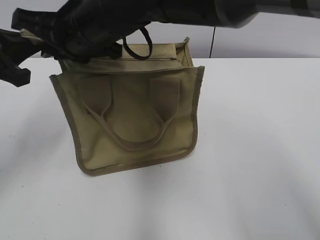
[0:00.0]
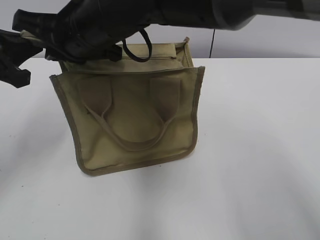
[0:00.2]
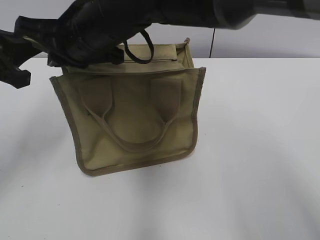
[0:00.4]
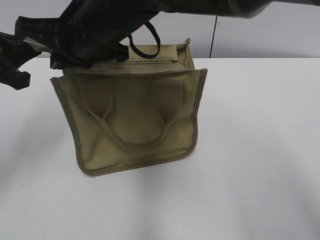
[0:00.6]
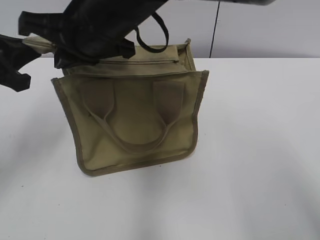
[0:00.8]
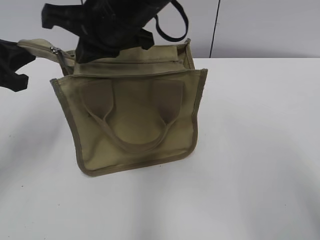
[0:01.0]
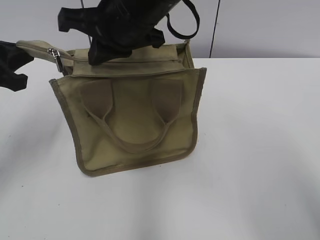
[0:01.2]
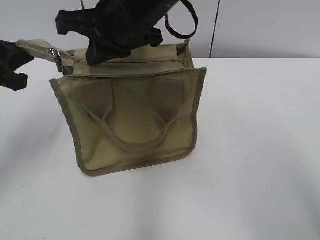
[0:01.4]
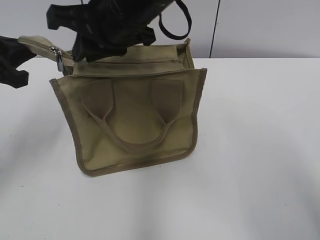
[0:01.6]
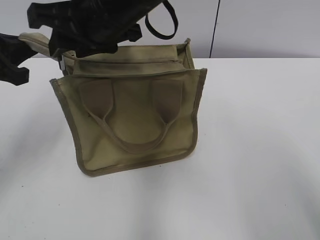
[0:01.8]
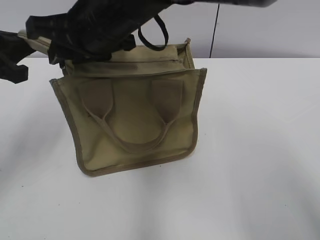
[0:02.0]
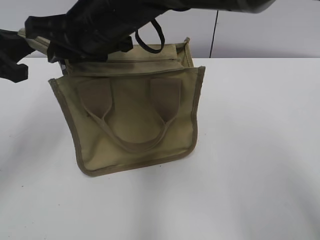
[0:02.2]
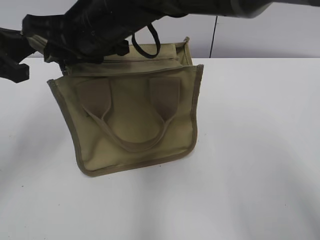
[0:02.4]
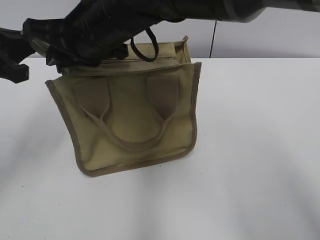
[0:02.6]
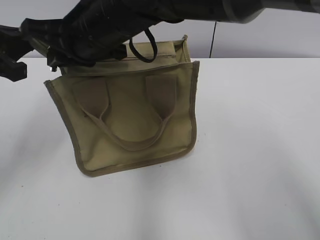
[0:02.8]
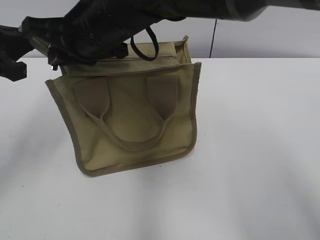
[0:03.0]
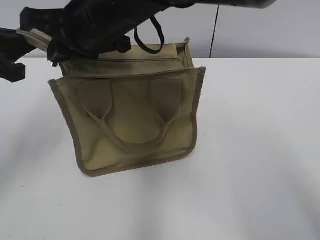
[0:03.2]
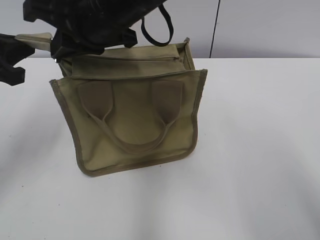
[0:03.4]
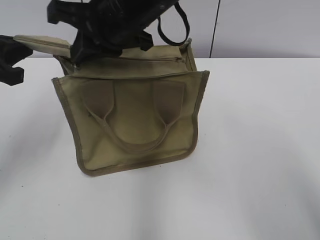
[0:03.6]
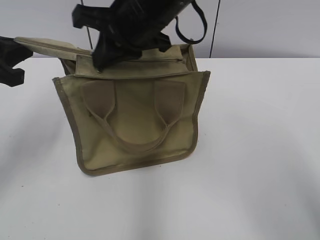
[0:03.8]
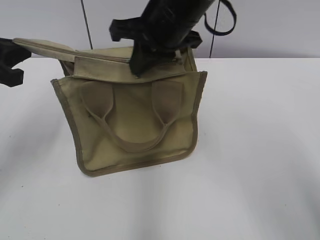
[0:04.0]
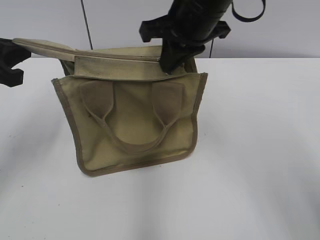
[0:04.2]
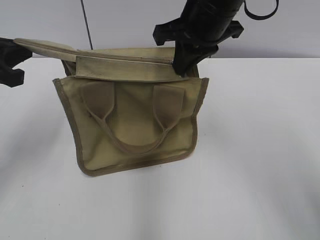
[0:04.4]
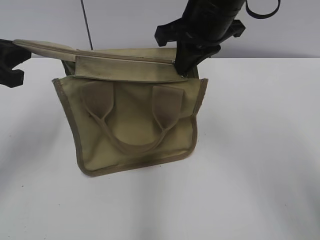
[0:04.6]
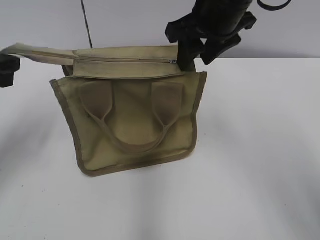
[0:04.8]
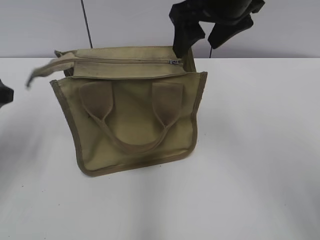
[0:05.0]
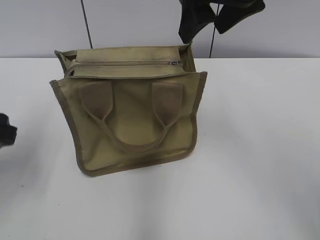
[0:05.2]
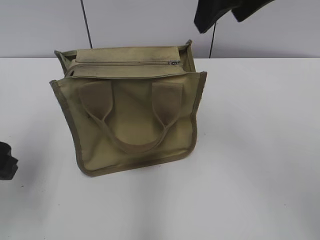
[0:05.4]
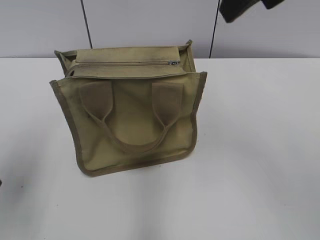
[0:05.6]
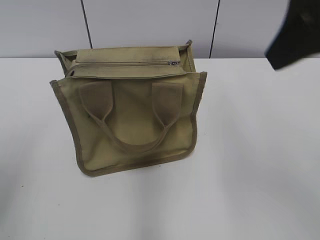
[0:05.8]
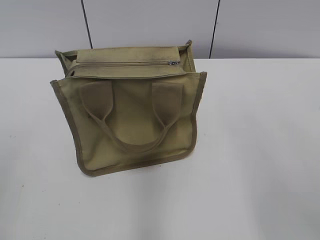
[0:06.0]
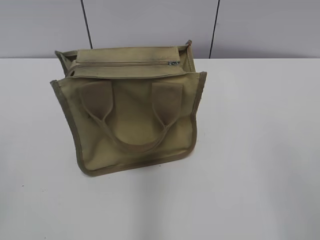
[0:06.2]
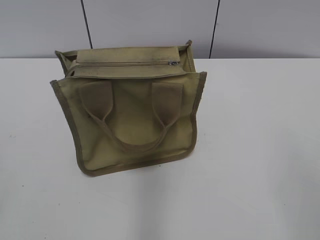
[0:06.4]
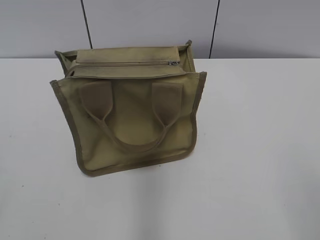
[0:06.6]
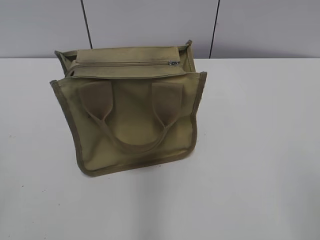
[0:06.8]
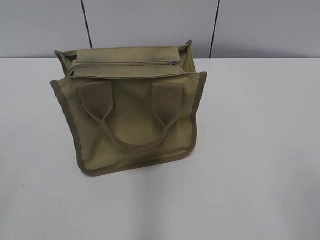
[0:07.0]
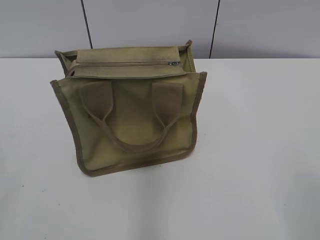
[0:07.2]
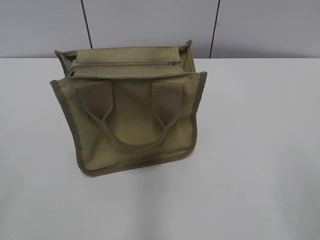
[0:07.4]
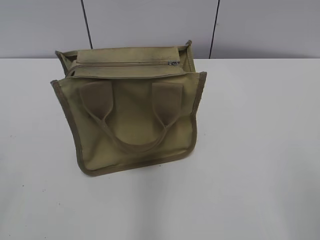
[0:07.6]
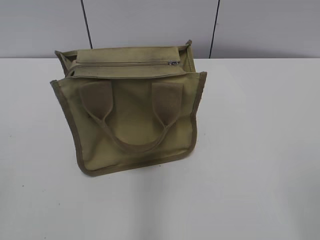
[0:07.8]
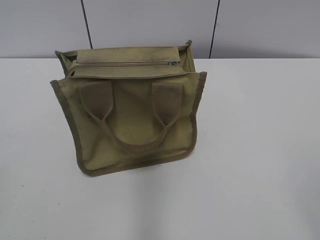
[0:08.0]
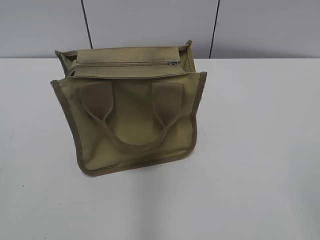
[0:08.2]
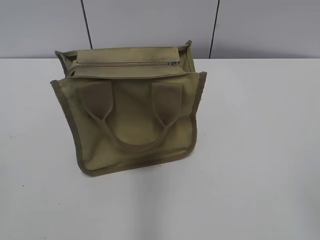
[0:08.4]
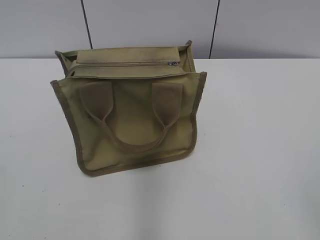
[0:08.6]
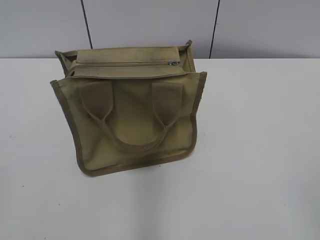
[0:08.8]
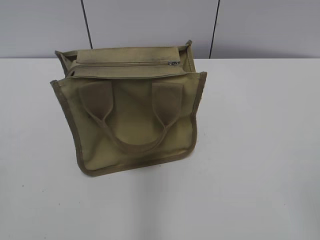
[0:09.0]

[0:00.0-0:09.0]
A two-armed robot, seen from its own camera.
Step, 0:00.0 to 0:04.6: Zip up the bag with your right hand.
0:00.0 to 0:01.6: The right gripper moves some 5 cm.
0:01.6 to 0:03.0: The right gripper opens and closes again.
0:03.0 to 0:04.4: The right gripper heads to the right, covering about 15 cm.
0:04.4 to 0:06.0: The left gripper goes some 15 cm backward, and opens up; the right gripper moves backward, to the right and upward, some 25 cm, and opens.

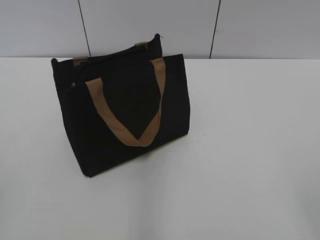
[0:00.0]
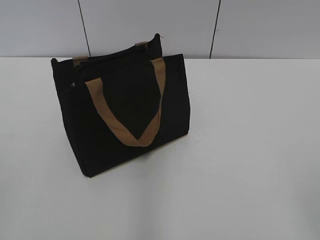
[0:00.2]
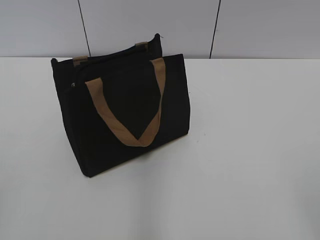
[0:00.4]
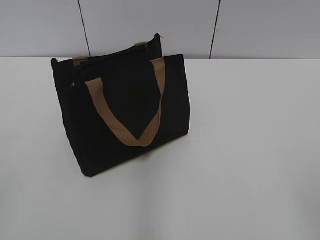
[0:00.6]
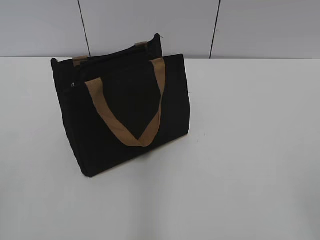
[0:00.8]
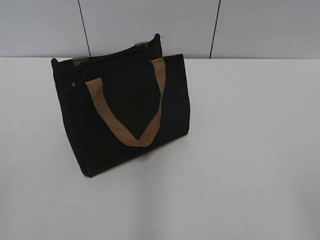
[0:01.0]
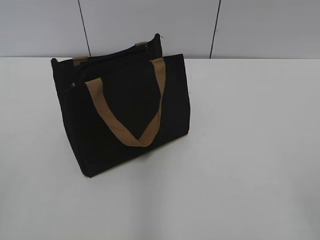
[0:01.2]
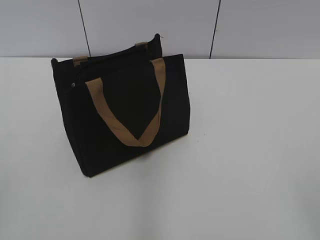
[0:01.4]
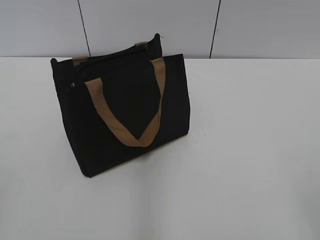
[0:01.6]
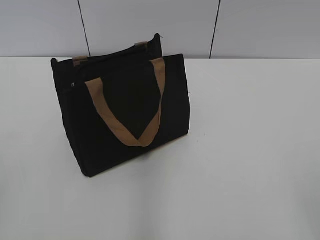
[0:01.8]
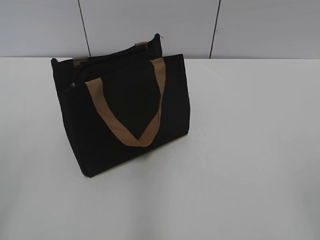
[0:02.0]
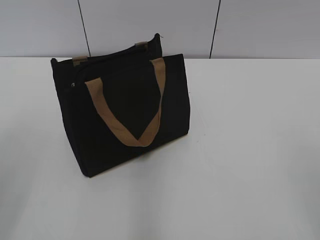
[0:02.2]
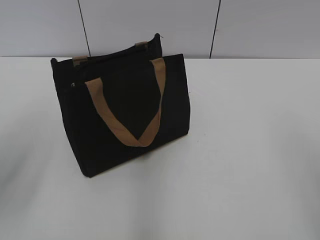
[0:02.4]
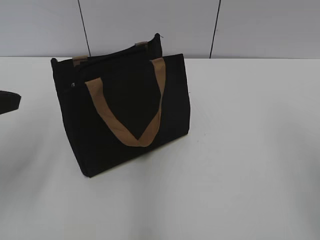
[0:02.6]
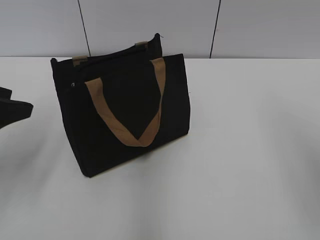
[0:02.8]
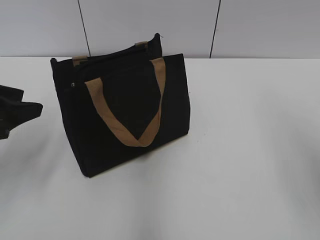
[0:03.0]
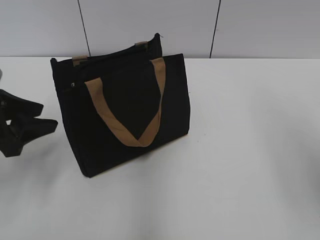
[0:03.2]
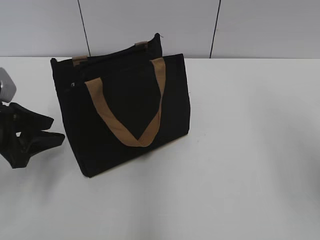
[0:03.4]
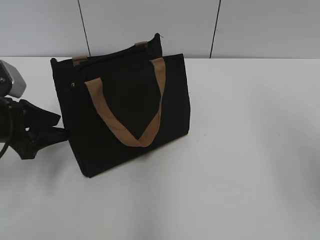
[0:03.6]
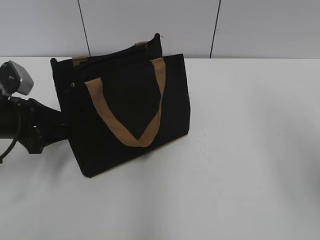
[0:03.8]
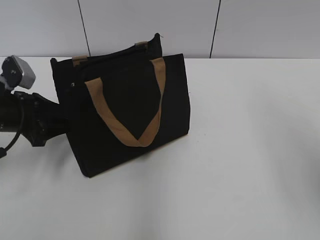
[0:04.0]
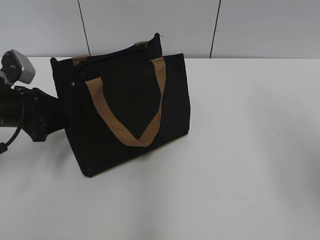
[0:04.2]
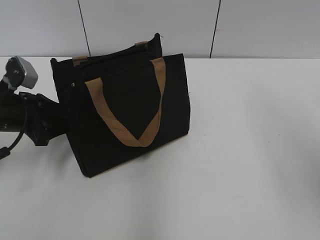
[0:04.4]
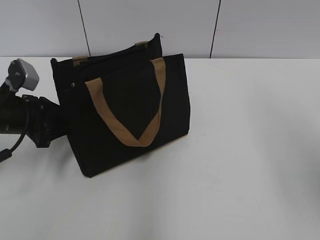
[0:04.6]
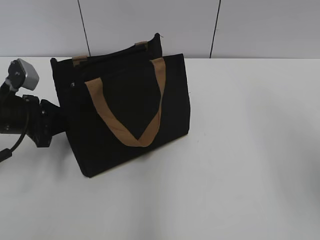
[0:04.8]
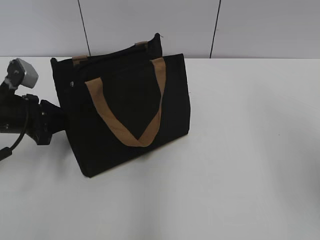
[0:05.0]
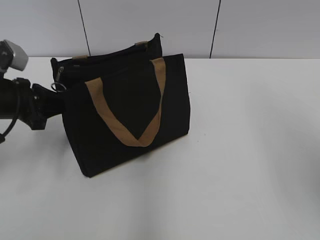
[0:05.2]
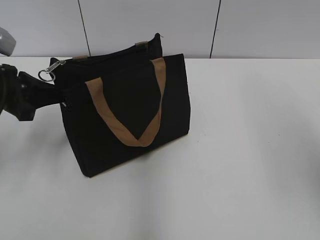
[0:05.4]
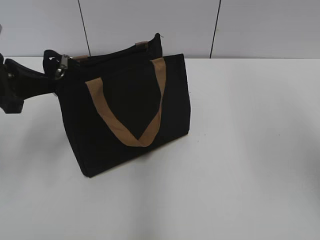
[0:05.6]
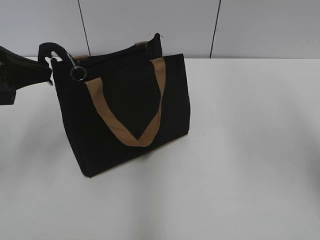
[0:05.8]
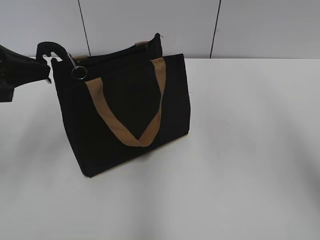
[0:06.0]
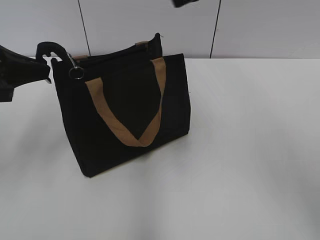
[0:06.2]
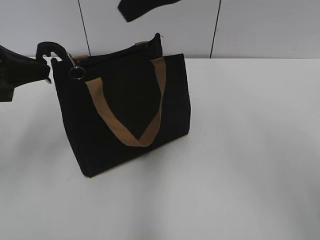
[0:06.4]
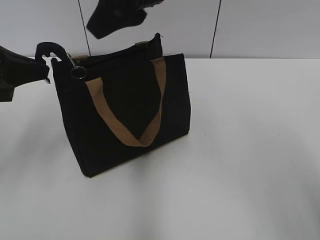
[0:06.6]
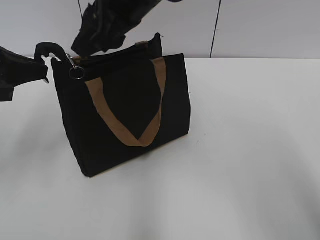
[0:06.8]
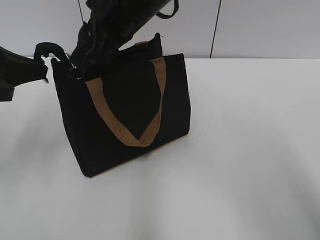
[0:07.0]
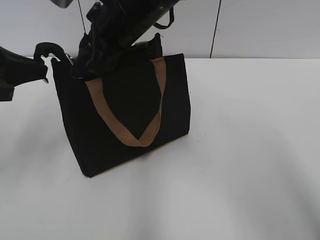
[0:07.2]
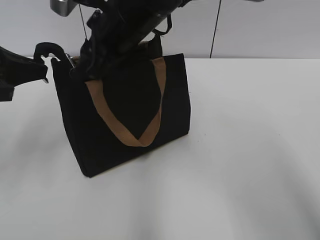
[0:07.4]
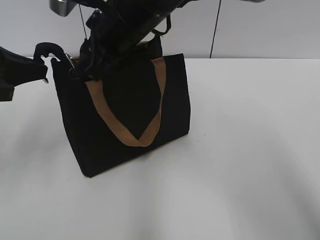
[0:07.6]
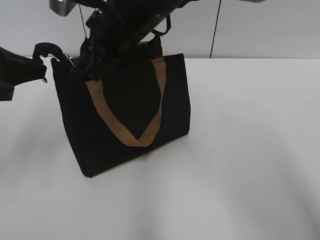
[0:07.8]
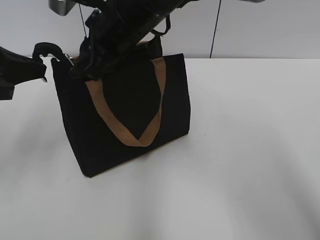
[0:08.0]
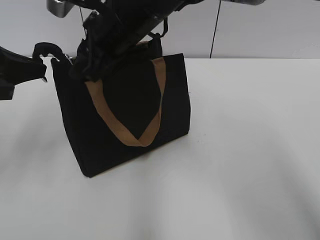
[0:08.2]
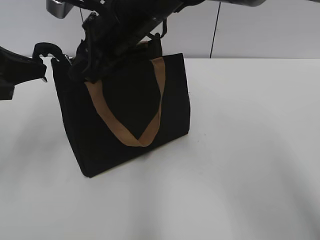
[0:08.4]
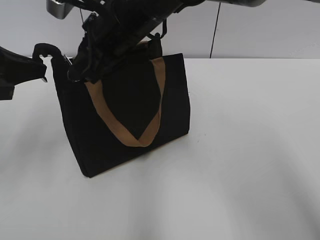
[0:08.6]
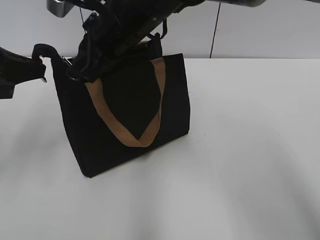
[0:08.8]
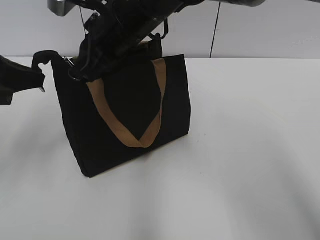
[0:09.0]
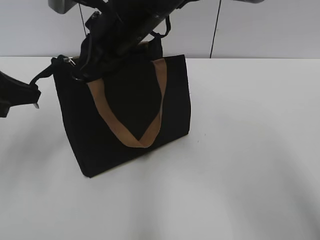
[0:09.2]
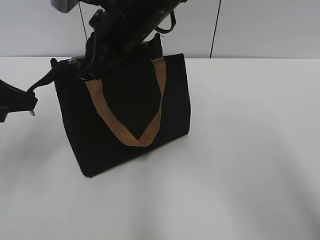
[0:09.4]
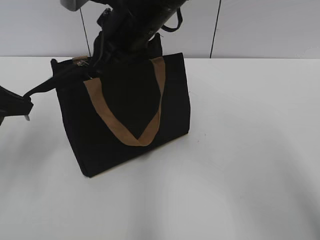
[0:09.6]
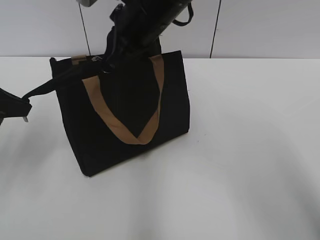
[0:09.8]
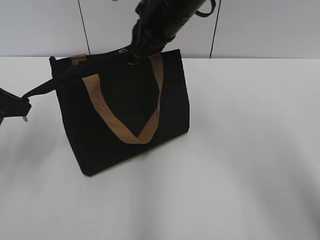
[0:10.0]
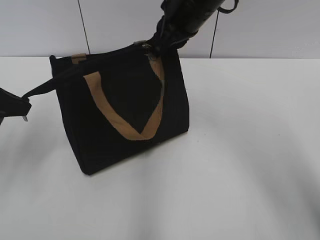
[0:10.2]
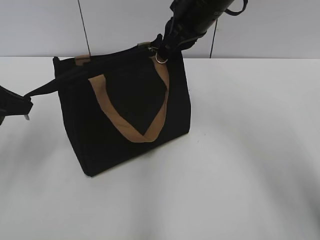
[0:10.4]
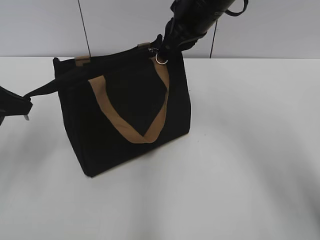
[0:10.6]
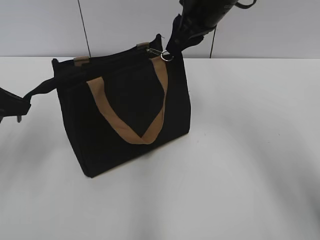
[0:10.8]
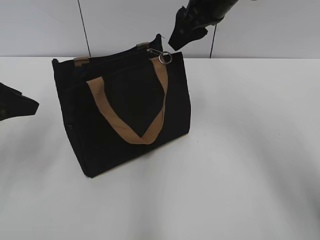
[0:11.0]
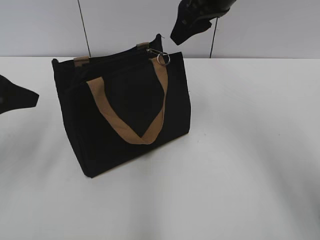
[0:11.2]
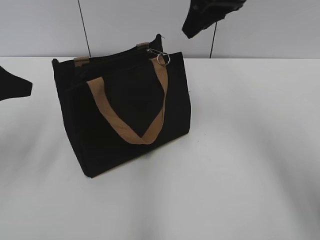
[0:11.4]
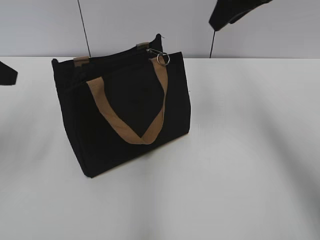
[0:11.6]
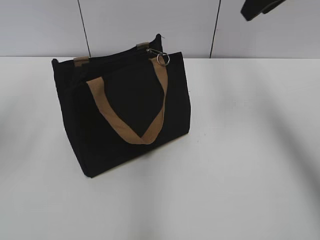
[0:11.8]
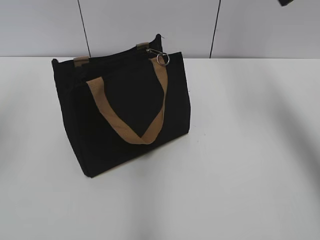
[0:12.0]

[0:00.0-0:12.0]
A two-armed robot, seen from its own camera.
Step, 0:00.0 to 0:10.6: Zip up the bag with your right hand.
0:01.6 to 0:03.0: The left gripper is displaced forward by roughly 25 cm.
0:03.0 to 0:04.4: The left gripper goes about 10 cm forward and downward.
0:04.4 to 0:06.0: The left gripper travels upward by about 10 cm, and closes its fingers.
0:06.0 to 0:07.6: The right gripper is displaced to the left and downward by some 30 cm.
0:07.6 to 0:09.0: The right gripper closes.
0:09.0 to 0:10.4: The right gripper is displaced to the right and forward by about 15 cm.
0:10.4 to 0:12.0: The right gripper shifts about 15 cm to the right and upward, and opens up. Meanwhile the left gripper shifts roughly 10 cm upward, and opens its fingers.

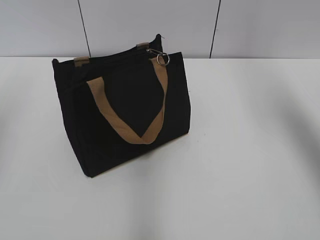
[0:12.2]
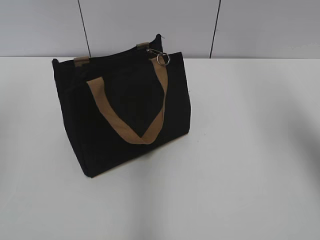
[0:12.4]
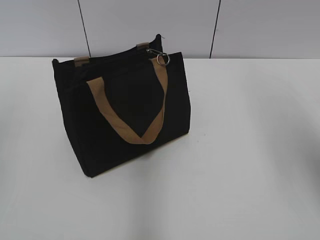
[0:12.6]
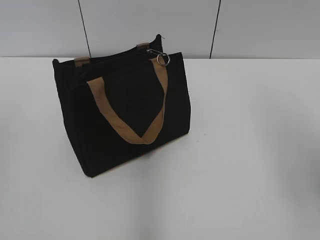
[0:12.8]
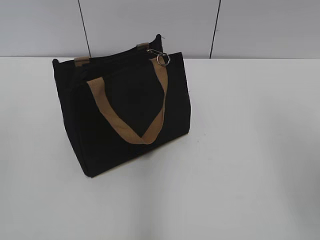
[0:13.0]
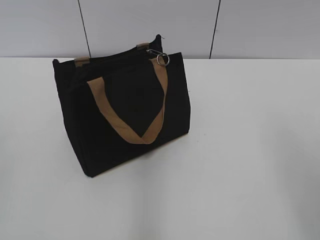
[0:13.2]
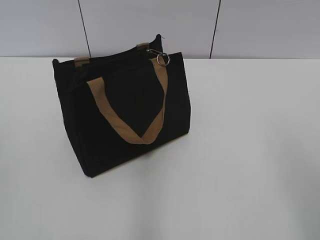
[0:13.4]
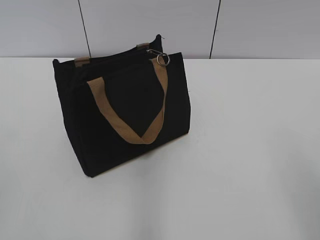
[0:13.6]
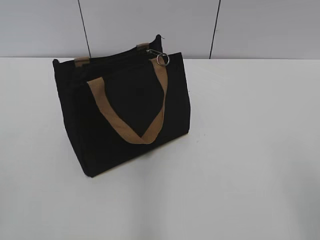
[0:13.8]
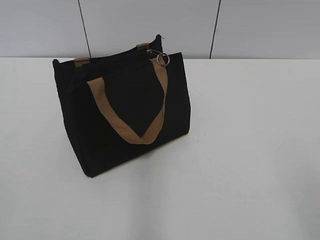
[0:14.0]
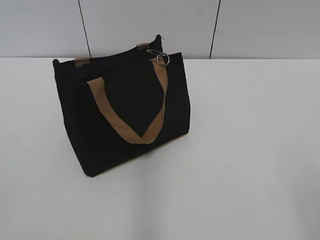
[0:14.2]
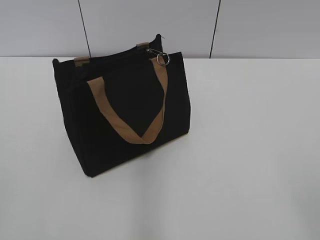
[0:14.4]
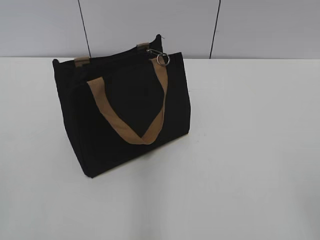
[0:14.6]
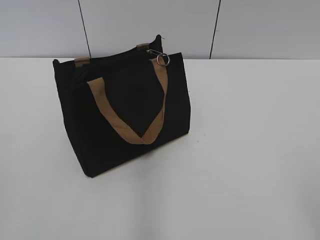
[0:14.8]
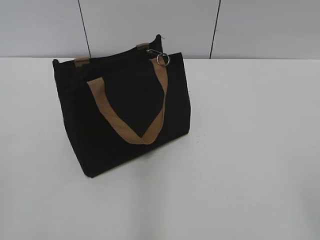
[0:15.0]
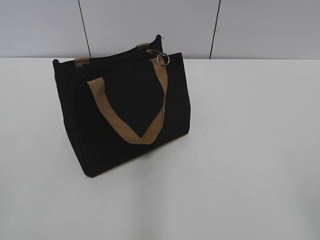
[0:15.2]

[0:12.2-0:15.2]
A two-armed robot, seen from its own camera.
0:12.2 to 0:13.8: The right gripper travels backward and downward by roughly 35 cm.
